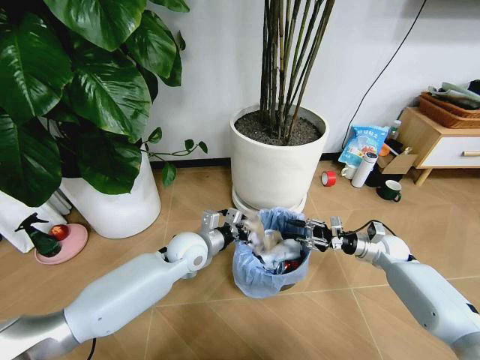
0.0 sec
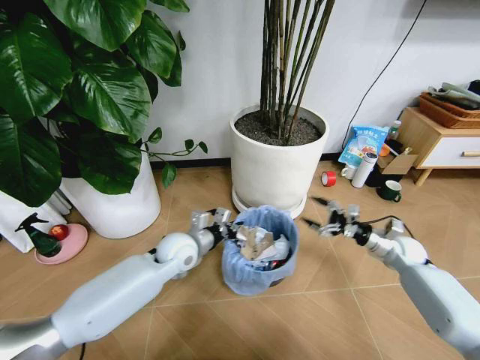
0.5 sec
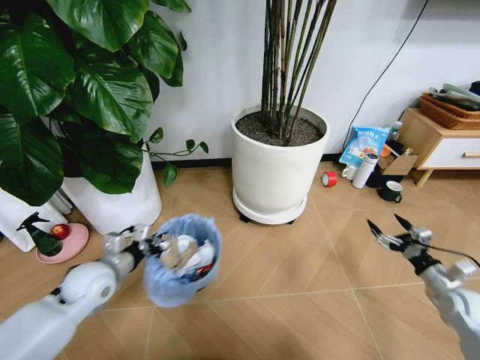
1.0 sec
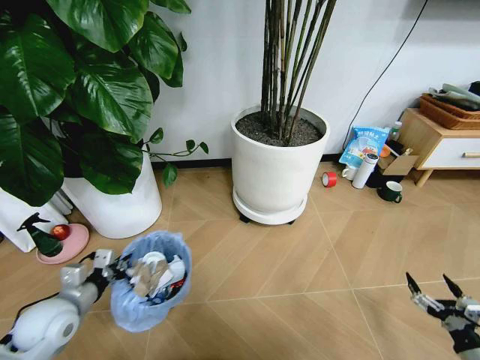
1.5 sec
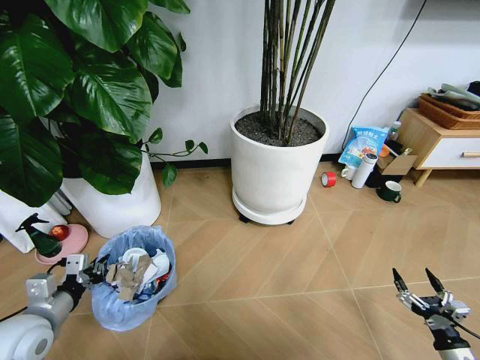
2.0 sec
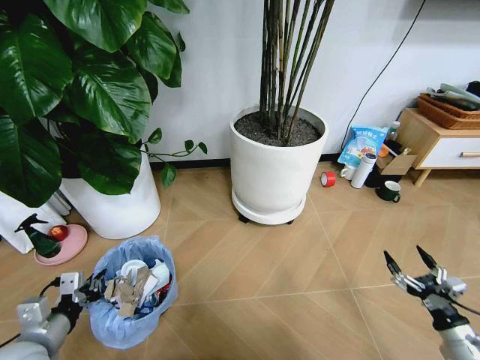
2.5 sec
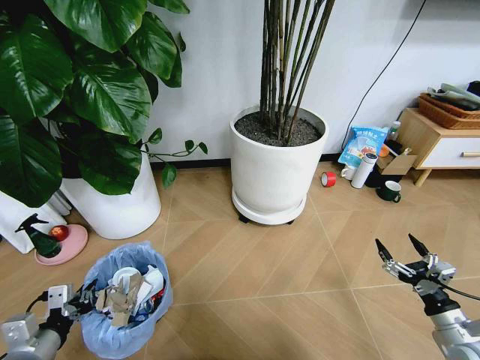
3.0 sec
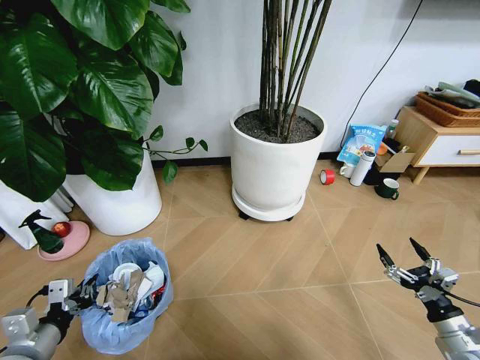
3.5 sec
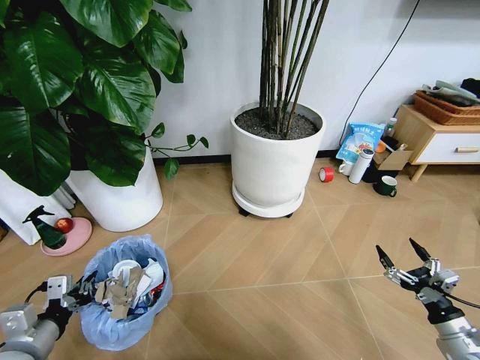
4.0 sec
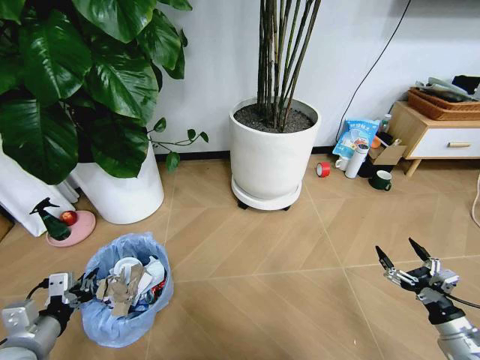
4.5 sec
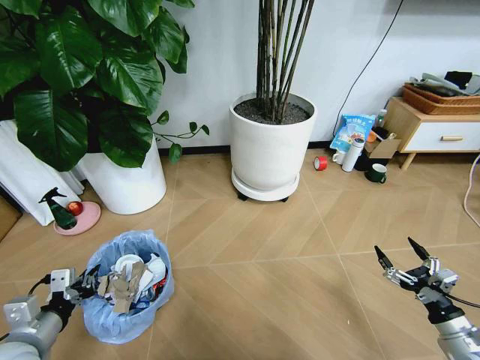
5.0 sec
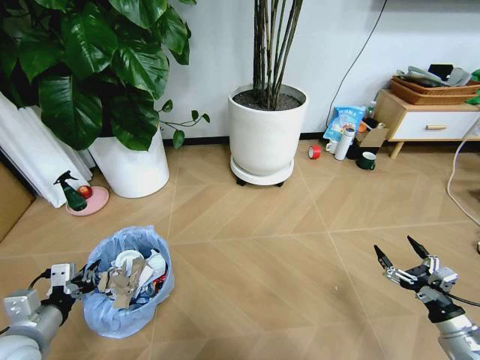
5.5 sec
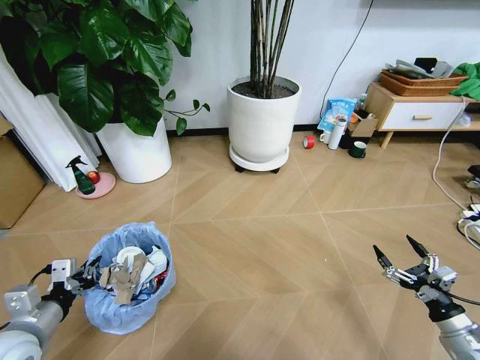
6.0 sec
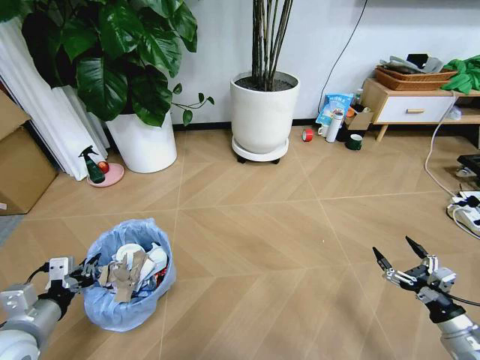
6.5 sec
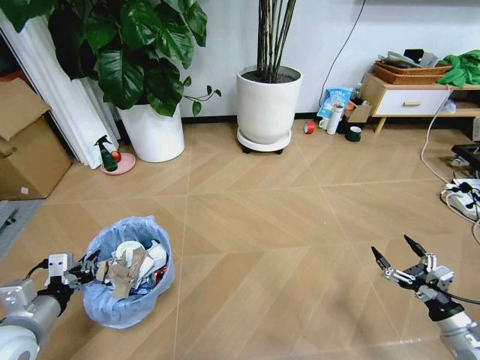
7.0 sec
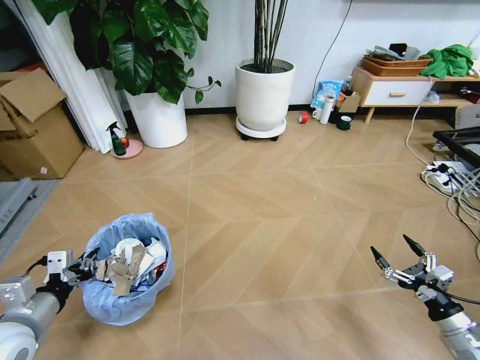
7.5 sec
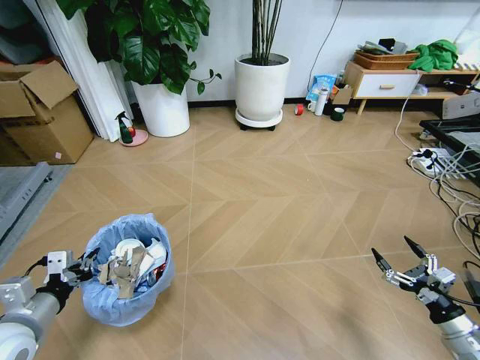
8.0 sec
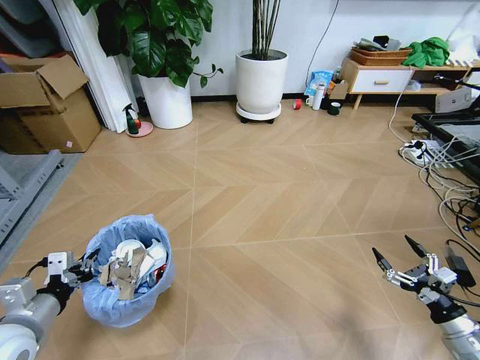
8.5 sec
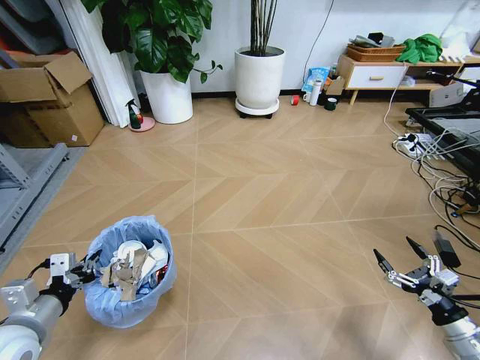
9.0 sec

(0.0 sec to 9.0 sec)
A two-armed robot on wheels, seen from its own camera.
Task of the whole recording: Pick up the trash bin and place the garbage on the floor into it.
0.0 sec - 2.0 sec: The left gripper is displaced to the left and backward by some 35 cm. The right gripper shifts some 35 cm backward, and opens.
2.0 sec - 4.5 sec: The right gripper moves upward, about 10 cm; the left gripper heads backward, covering approximately 5 cm.

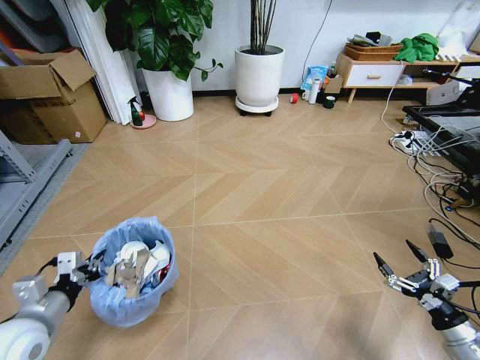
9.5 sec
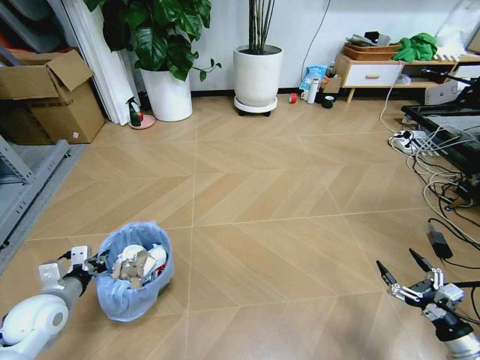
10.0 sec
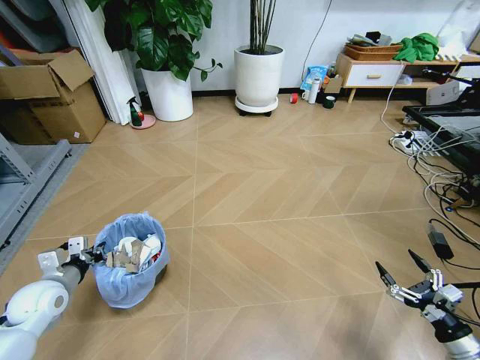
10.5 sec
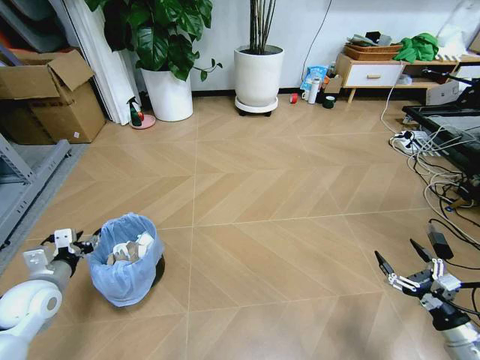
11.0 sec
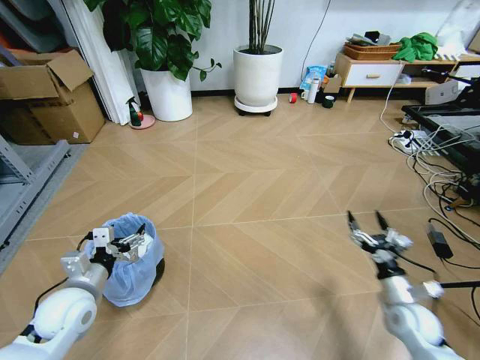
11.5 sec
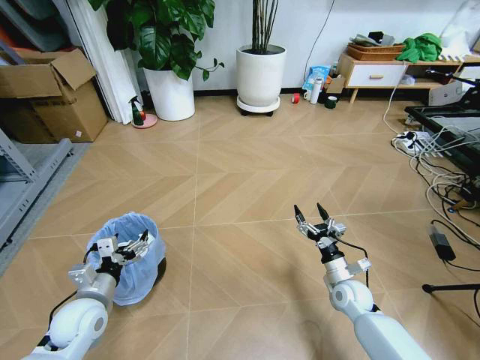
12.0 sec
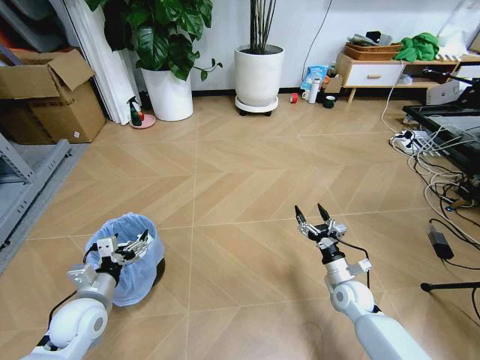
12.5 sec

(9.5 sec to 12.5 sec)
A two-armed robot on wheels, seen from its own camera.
Task of the whole recording: Pick up the trash bin and place the garbage on the floor into it.
9.5 sec - 11.0 sec: The left gripper shifts some 10 cm forward, and opens its fingers.
11.0 sec - 12.5 sec: The right gripper heads forward, to the left and downward, covering approximately 25 cm. Meanwhile the left gripper heads to the right, covering approximately 10 cm, and opens.
